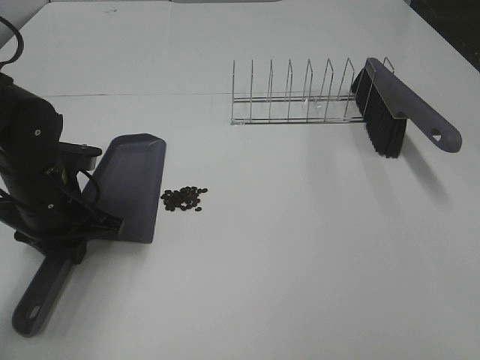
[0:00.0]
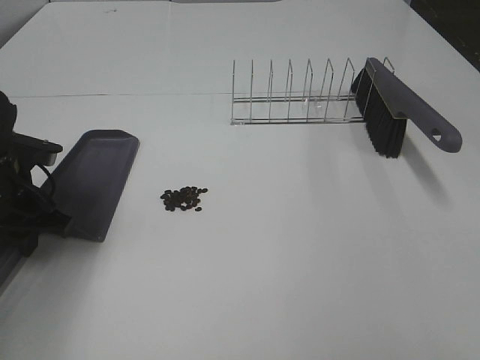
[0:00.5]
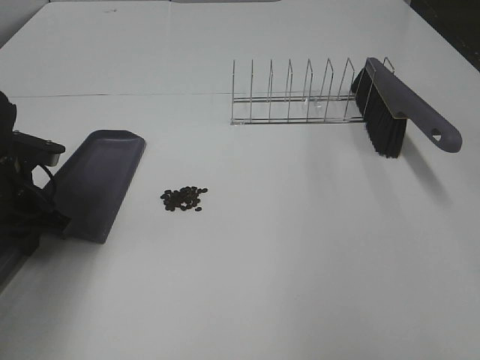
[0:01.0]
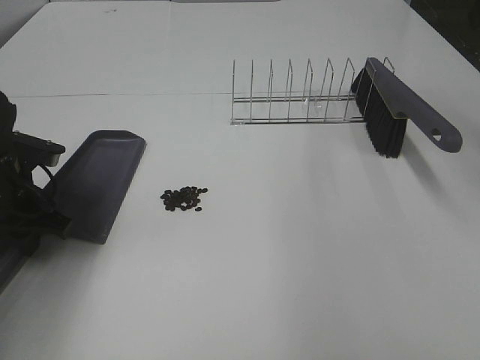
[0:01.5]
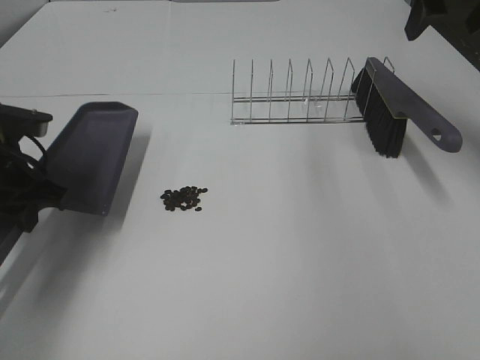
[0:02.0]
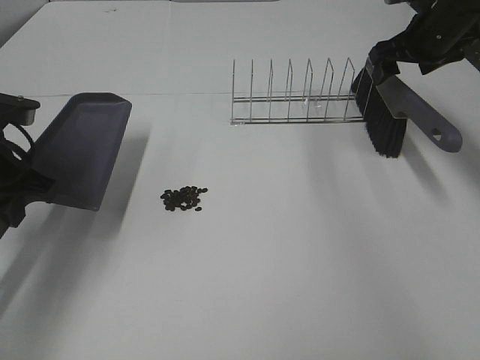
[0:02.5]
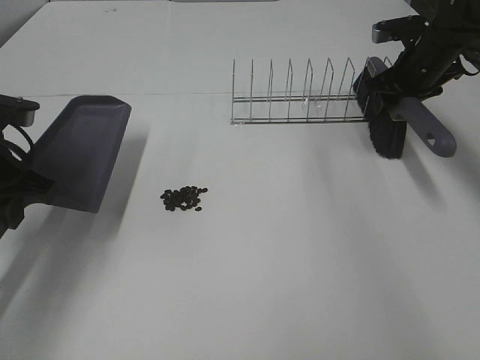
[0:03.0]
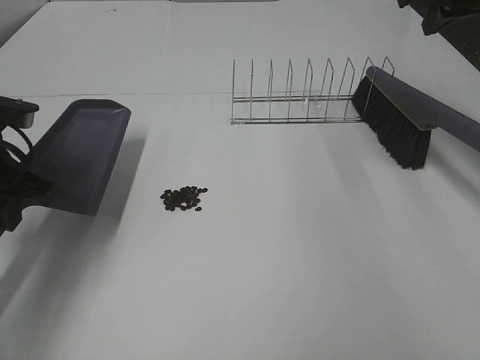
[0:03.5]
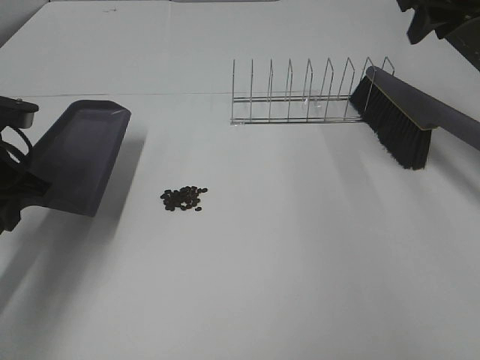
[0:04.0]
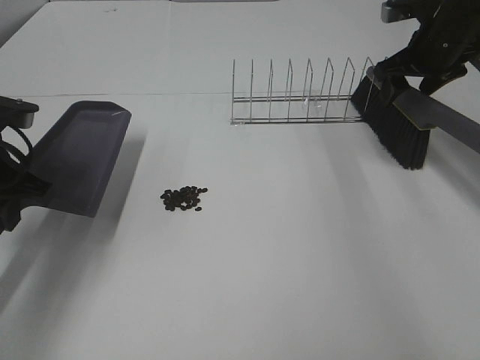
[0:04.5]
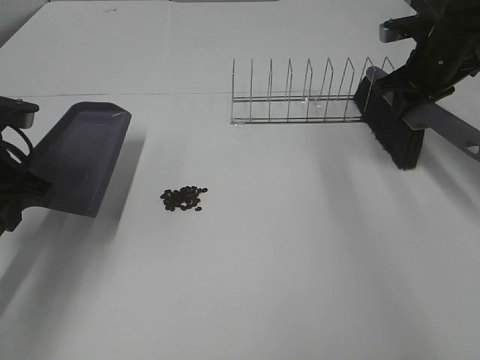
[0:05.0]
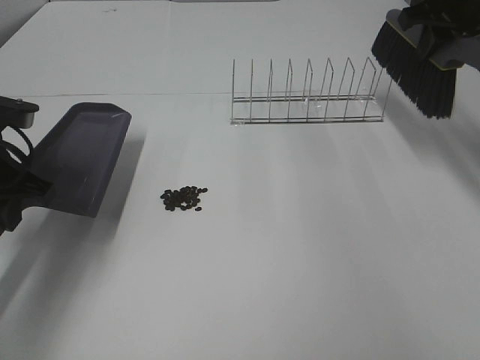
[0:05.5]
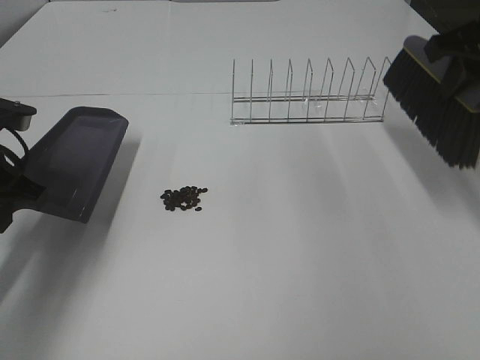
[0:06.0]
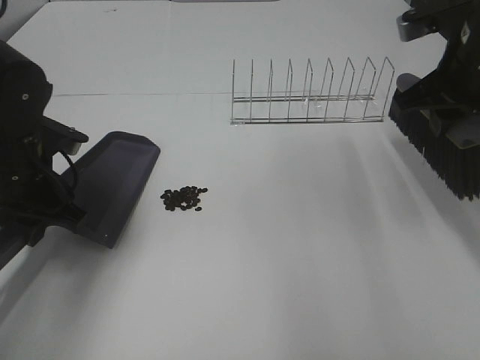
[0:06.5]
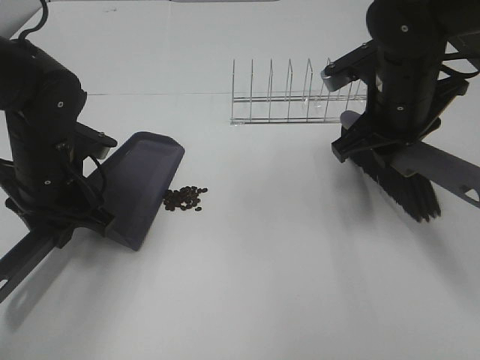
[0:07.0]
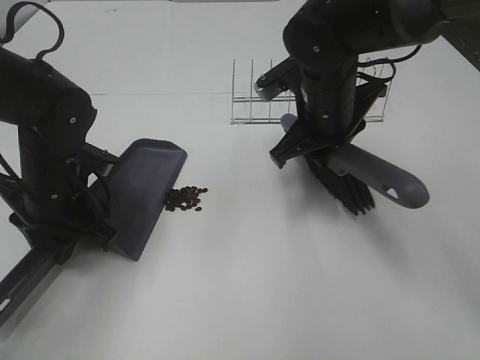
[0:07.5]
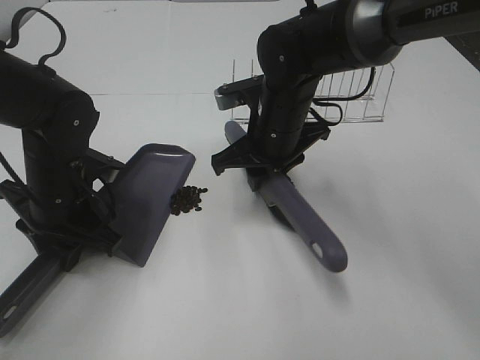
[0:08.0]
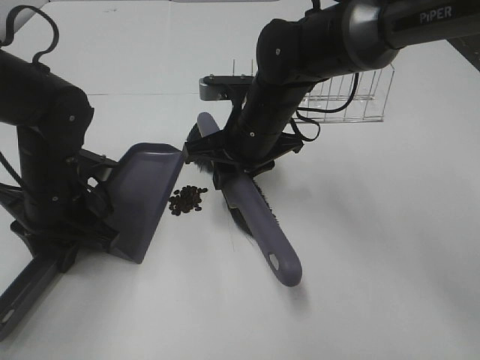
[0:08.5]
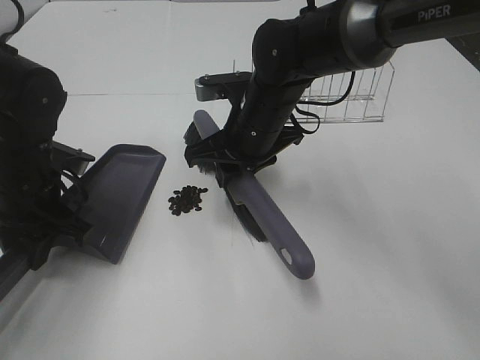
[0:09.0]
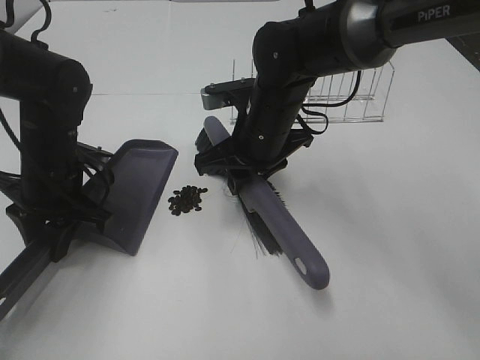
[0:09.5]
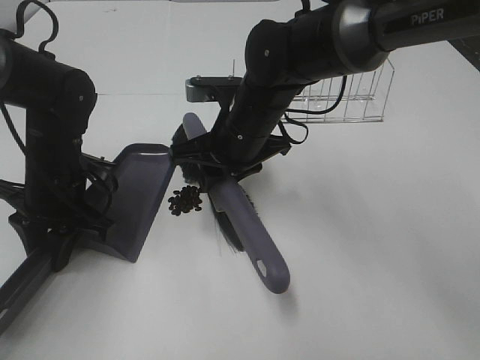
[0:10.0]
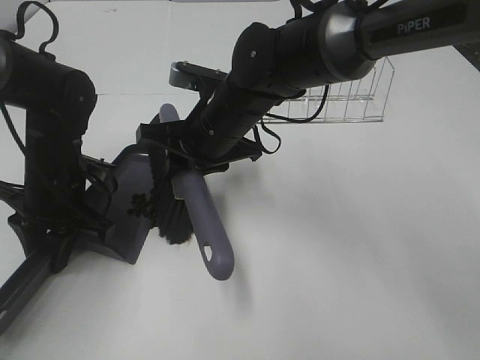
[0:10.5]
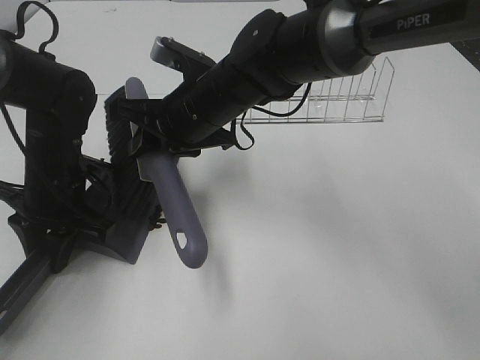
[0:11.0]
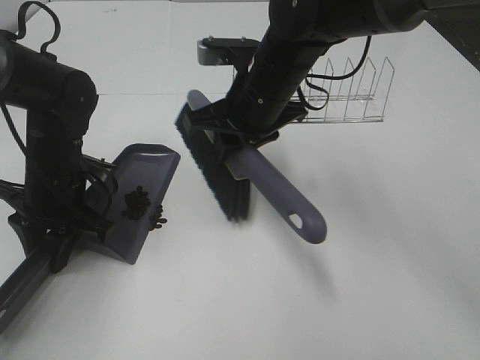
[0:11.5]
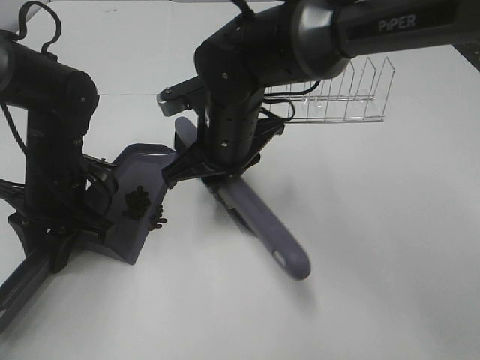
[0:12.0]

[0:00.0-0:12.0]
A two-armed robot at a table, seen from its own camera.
Task of the whole recording: Sweep Coffee Bean.
Step, 0:00.5 to 0:04.5: Right hand:grab the broom.
0:00.0 to 0:02.0: The left gripper moves to the left, about 5 cm, while the right gripper goes approximately 40 cm forward.
0:02.0 to 0:04.0: The right gripper reaches approximately 15 cm downward, then returns, and closes its fingers.
0:04.0 to 0:06.0: The right gripper goes about 10 cm backward, and closes.
0:06.0 to 0:08.0: The left gripper travels to the right and downward by approximately 10 cm. The right gripper goes roughly 25 cm to the left and downward.
0:10.0 to 0:12.0: The right gripper moves left and right over about 5 cm, changing direction 2 times.

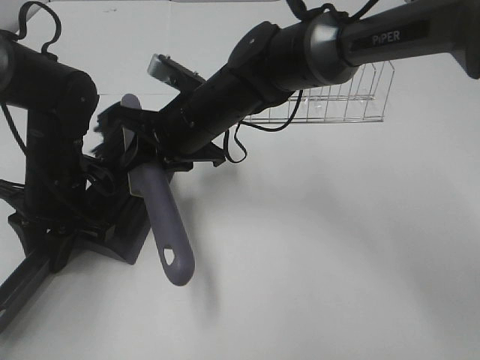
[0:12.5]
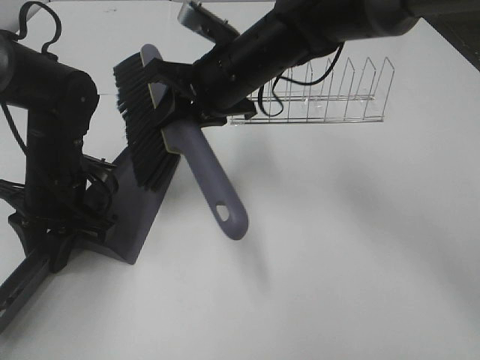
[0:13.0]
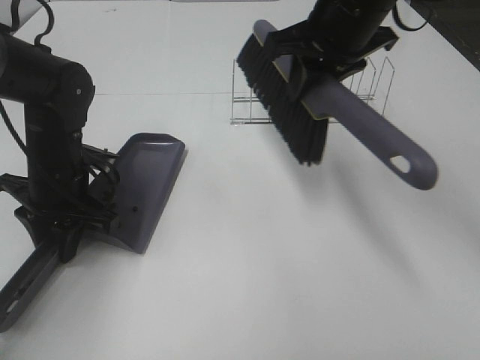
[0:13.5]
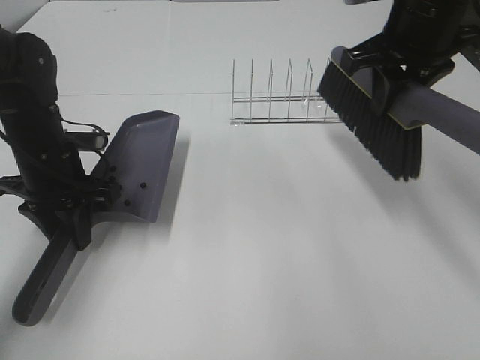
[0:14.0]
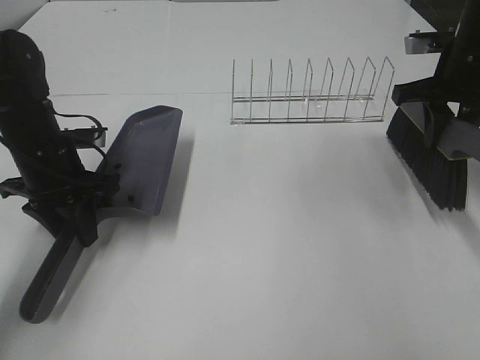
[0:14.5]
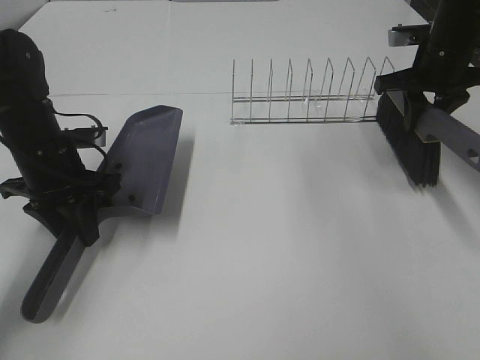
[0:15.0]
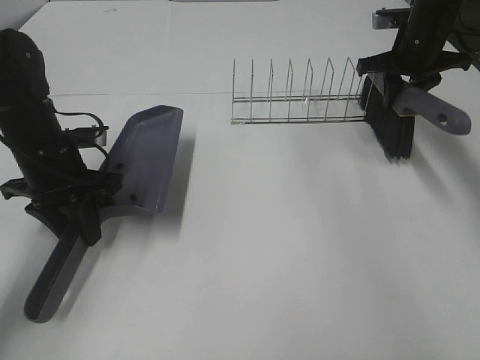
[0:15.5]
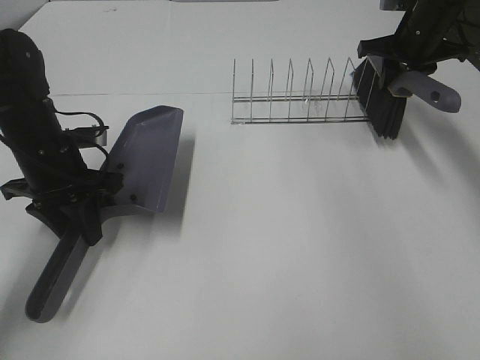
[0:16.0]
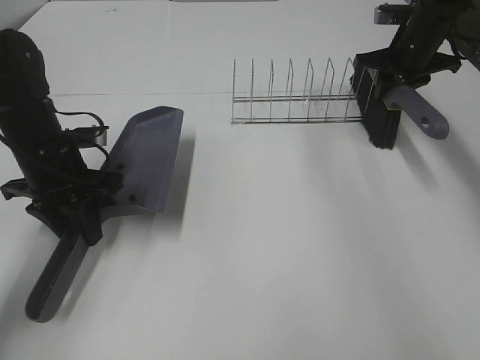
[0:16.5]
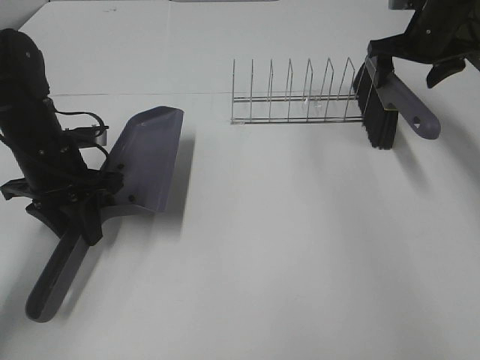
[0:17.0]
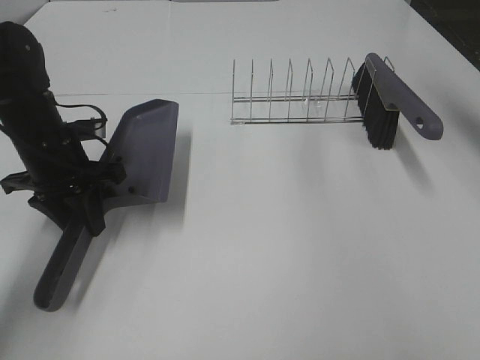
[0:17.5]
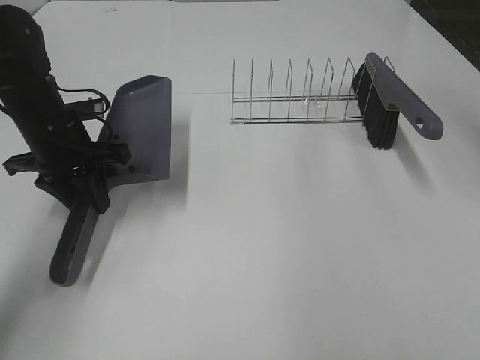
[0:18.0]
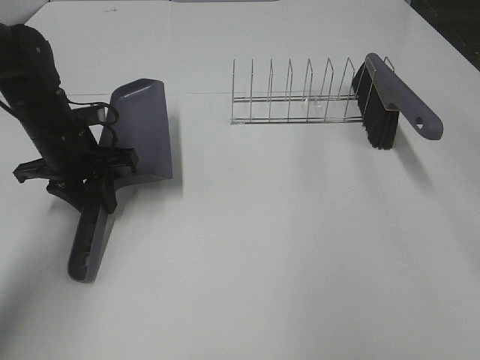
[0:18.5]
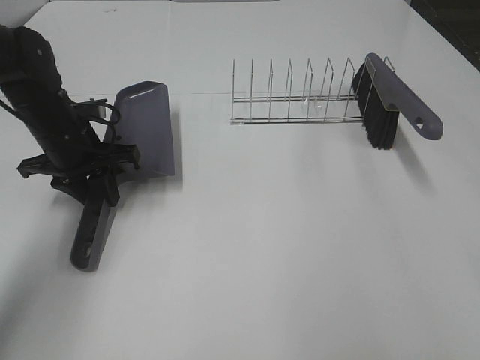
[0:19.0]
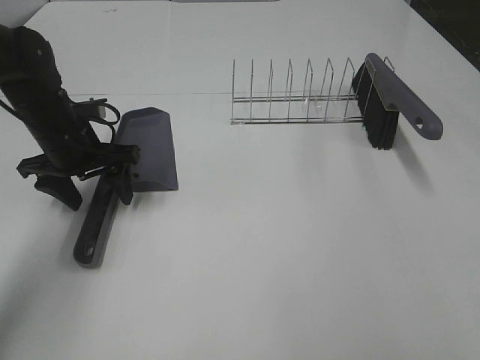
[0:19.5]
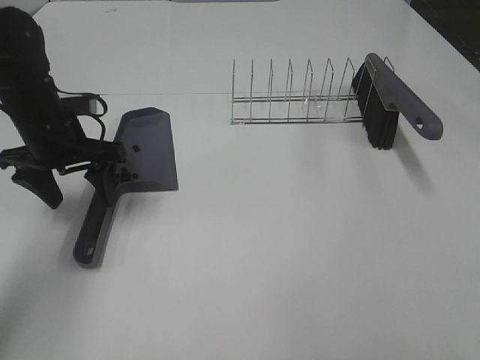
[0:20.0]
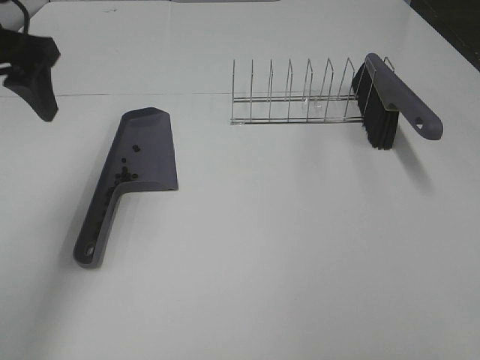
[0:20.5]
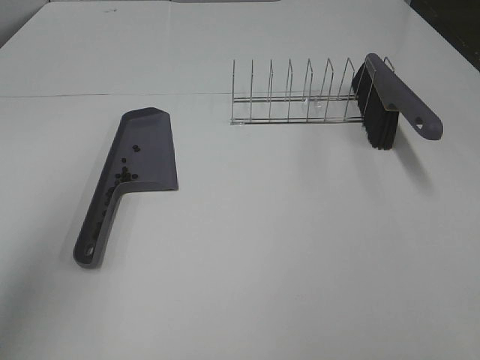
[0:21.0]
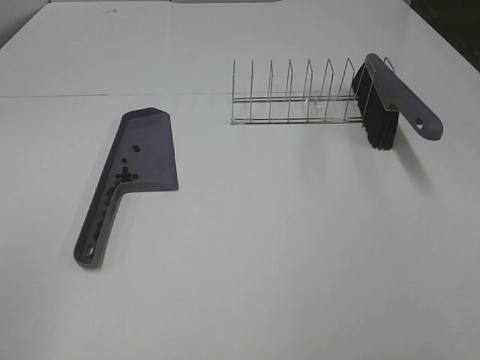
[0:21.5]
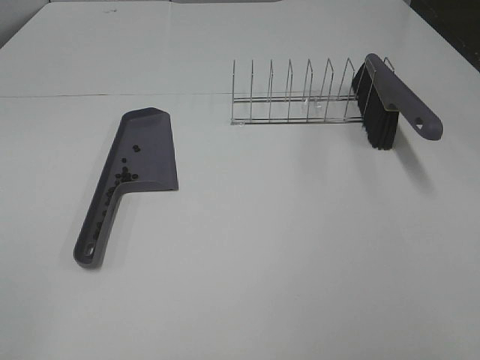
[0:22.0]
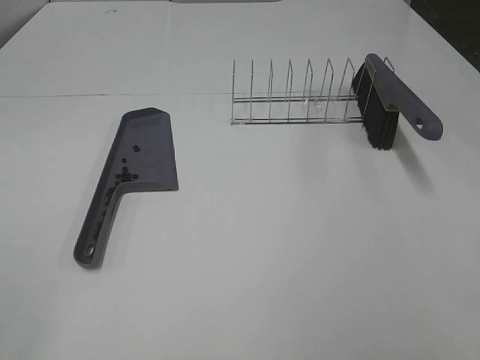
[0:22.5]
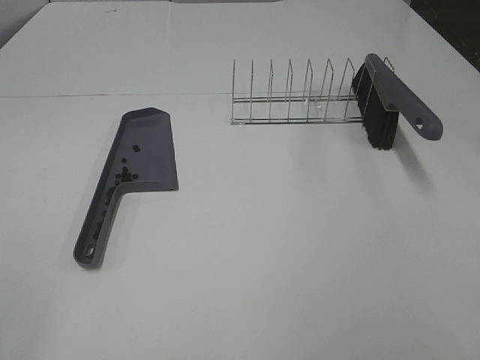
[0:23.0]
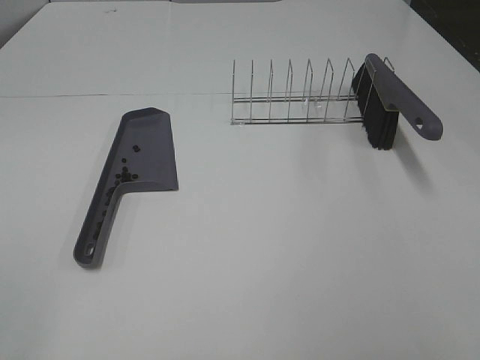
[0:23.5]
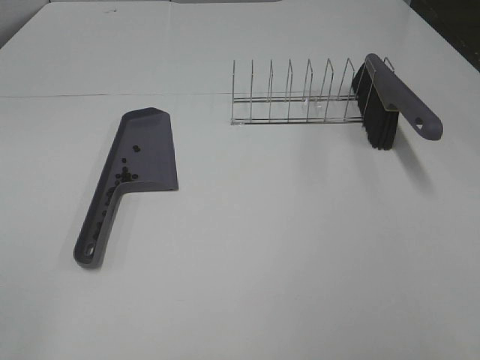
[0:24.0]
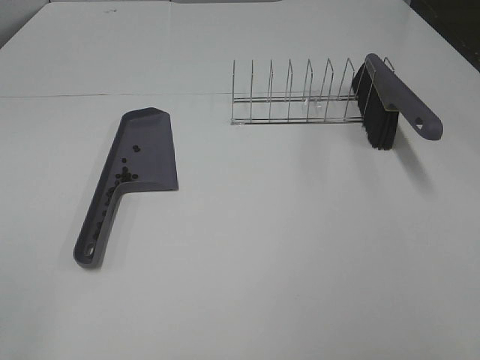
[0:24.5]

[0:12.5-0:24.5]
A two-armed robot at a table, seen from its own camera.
Task of the whole recording: Sweep Coffee Bean.
Step, 0:13.0 to 0:17.0: Right hand:place the broom on the rack.
0:12.5 to 0:14.5: The right gripper moves to the right, about 30 cm.
0:14.5 to 0:16.5: The right gripper moves forward, approximately 15 cm.
0:16.5 to 0:18.5: The right gripper is displaced backward and upward by some 35 cm, and opens its fingers.
0:18.5 to 0:20.5: The right gripper heads backward, covering about 20 cm.
0:20.5 to 0:24.5: Neither gripper changes place.

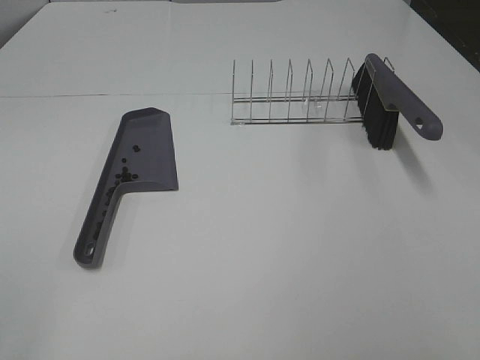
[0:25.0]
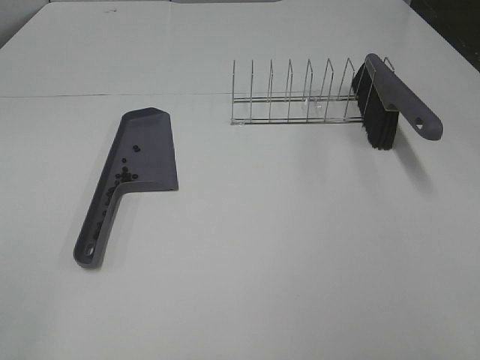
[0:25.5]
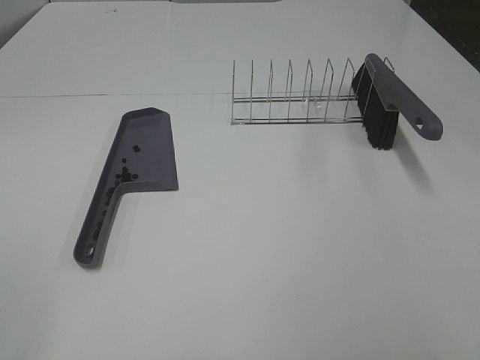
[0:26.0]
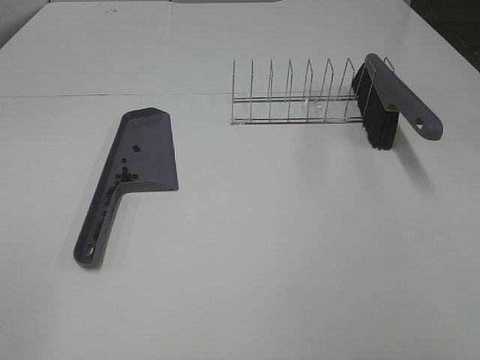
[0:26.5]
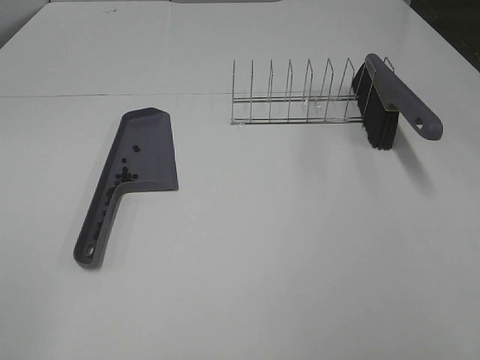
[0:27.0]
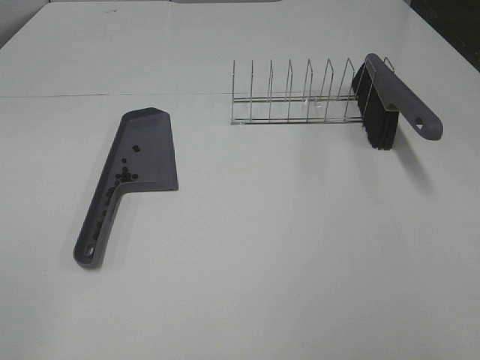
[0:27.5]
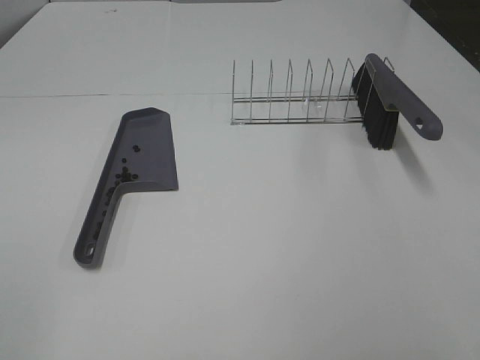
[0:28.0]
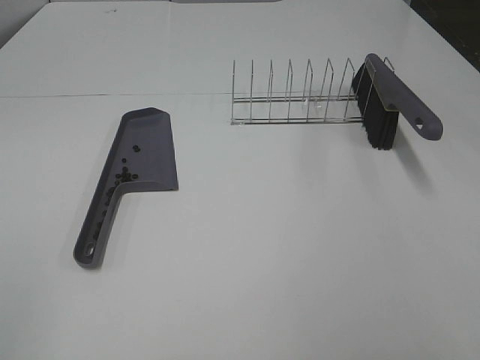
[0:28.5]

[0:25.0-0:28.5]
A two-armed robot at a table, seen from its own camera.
Task of the whole recording: Sweep Coffee Bean.
0:25.0 to 0:28.5: Both grippers stay put.
